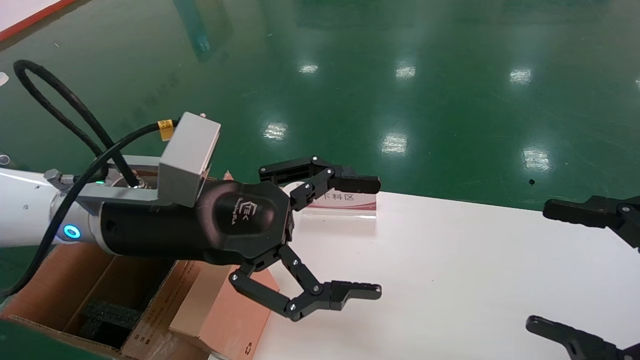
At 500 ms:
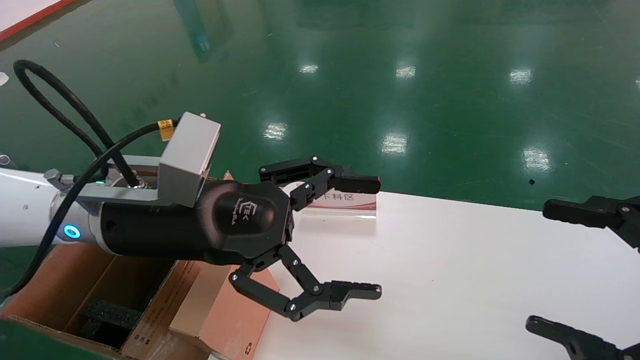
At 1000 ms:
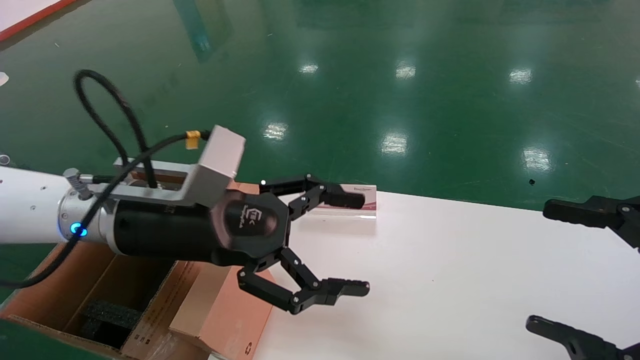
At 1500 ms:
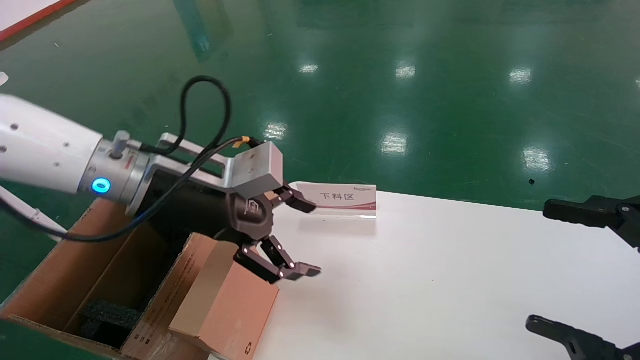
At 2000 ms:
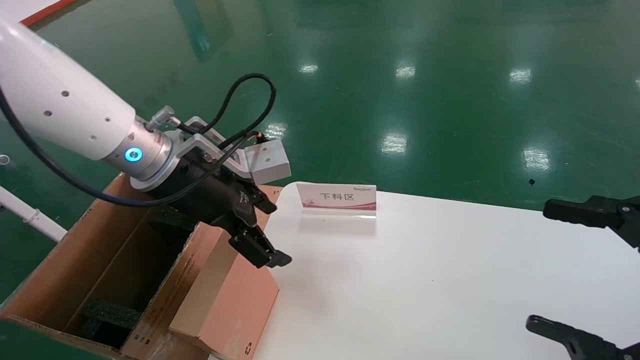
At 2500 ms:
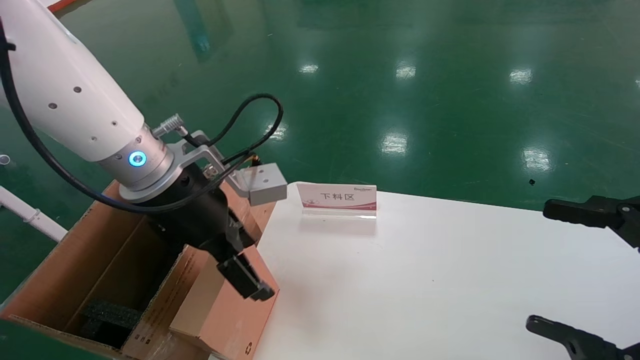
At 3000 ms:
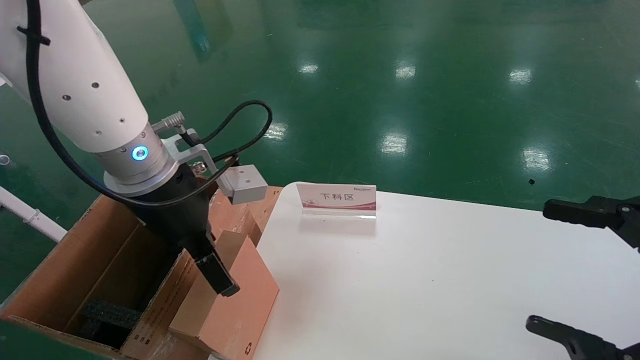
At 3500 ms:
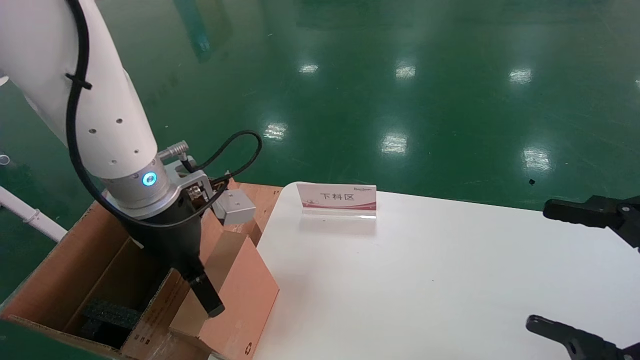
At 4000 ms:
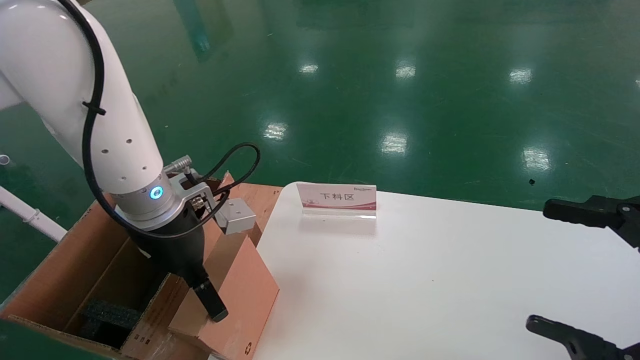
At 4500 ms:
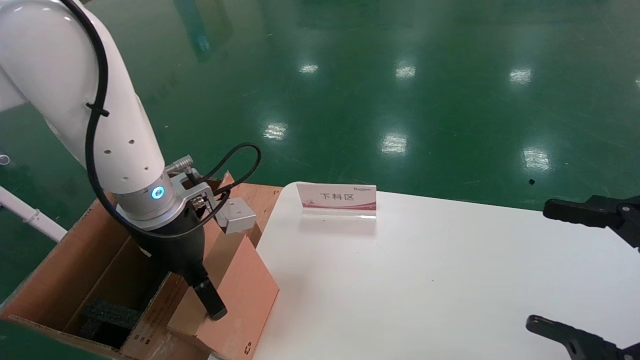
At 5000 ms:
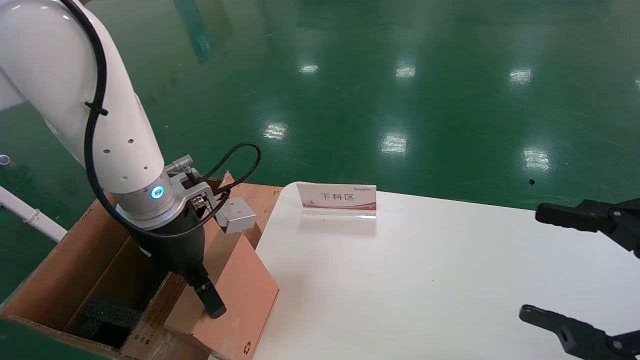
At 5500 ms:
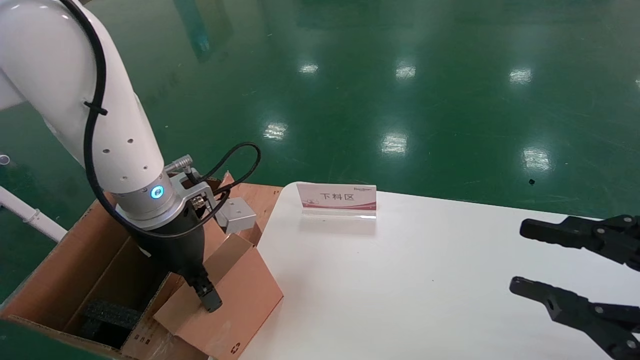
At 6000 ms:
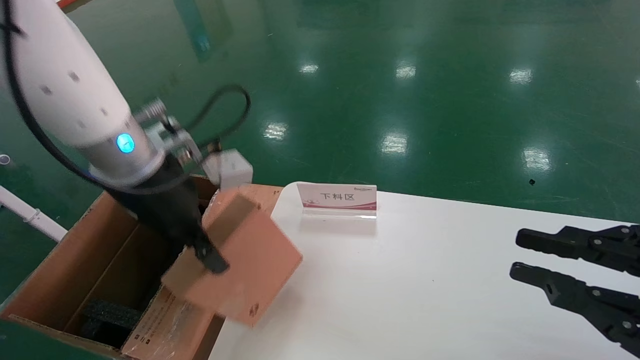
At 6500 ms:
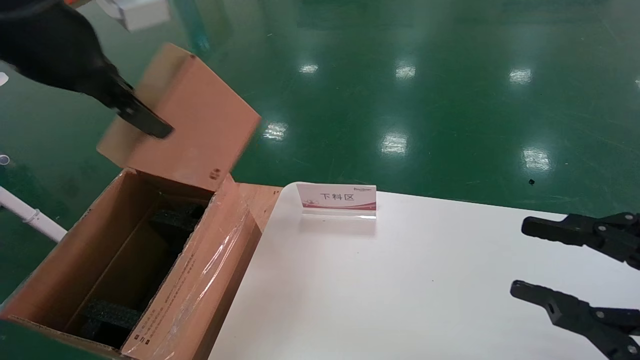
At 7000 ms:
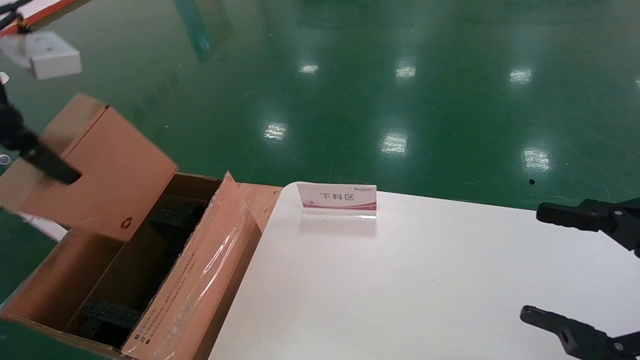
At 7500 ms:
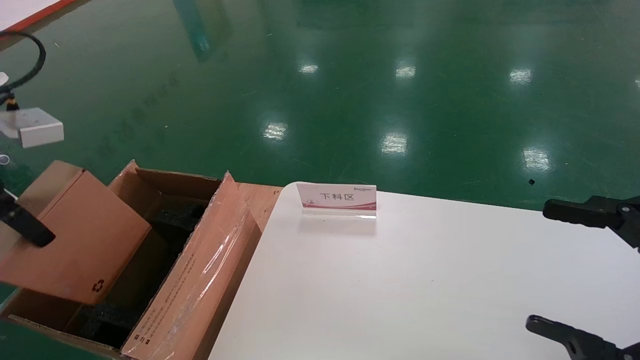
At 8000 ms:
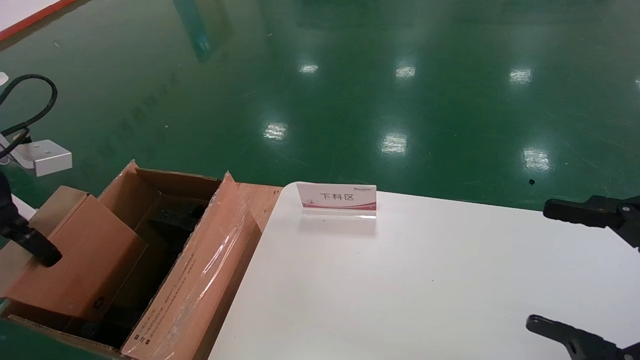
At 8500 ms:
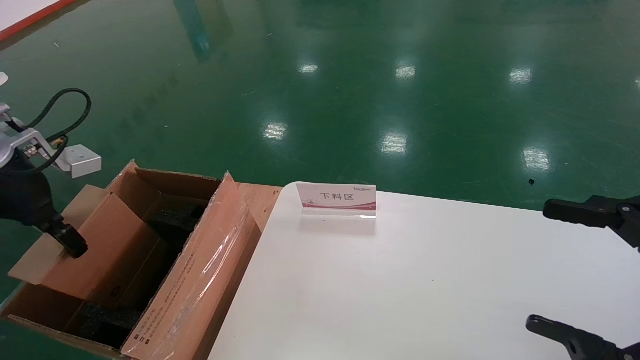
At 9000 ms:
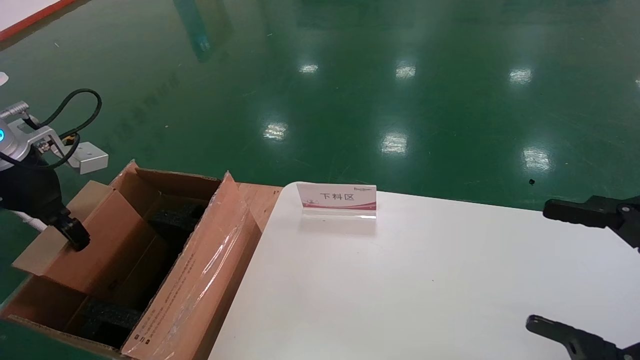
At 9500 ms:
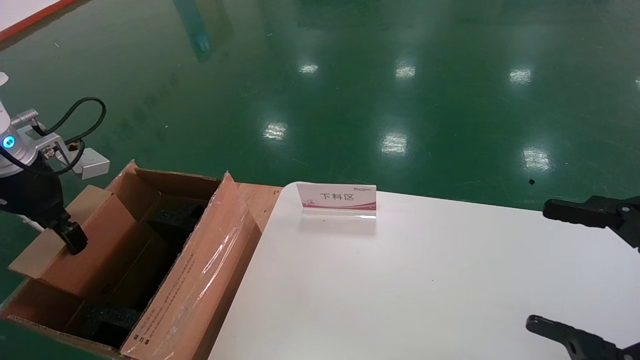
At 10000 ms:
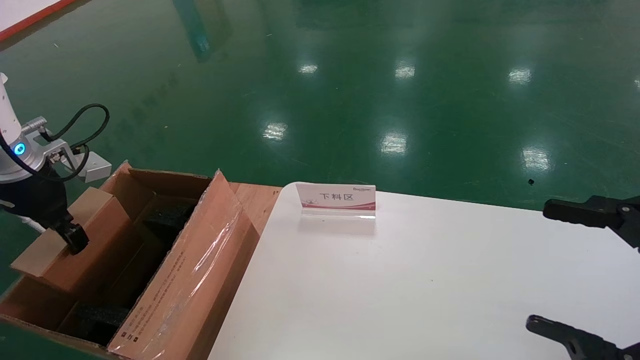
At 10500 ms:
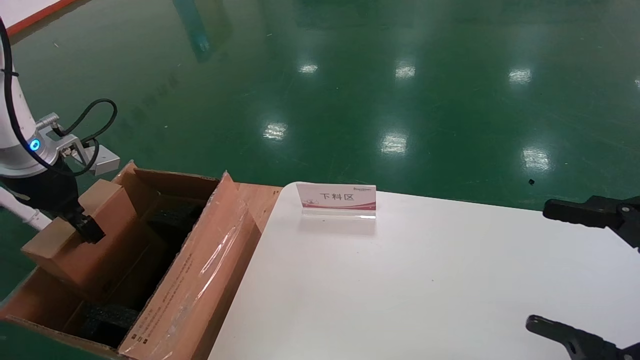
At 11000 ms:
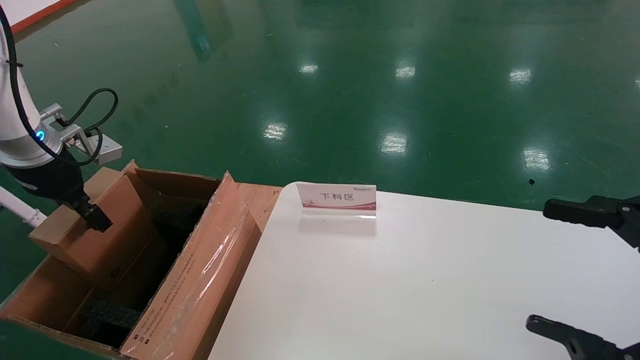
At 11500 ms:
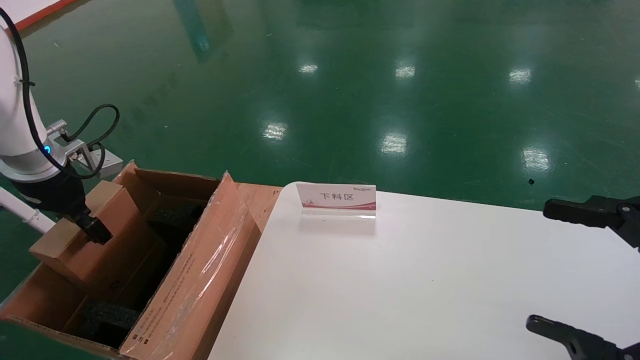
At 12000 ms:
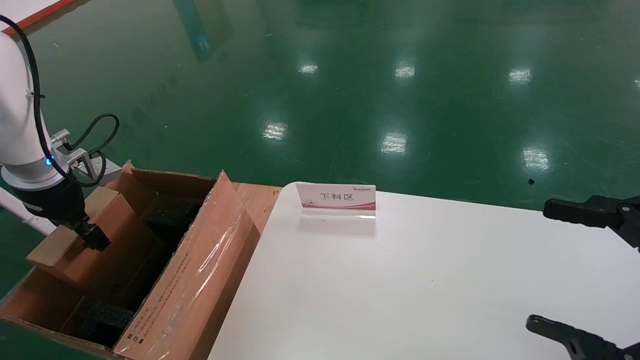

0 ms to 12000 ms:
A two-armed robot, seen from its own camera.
Task of the whole recording: pick up the small cardboard box and load it into the large cardboard box.
Step, 1500 ms to 5500 ms: Pick up the mouse and power cord box.
0 ms to 2000 ms: The left gripper travels forward by roughly 5 cm.
2000 ms to 4000 ms: The left gripper moves roughly 5 cm.
4000 ms to 6000 ms: The left gripper moves upward, some 5 cm, and closes its fingers. The right gripper closes.
6000 ms to 8000 ms: The left gripper heads to the left, covering roughly 20 cm. The right gripper opens.
8000 ms to 10000 ms: The left gripper travels forward by some 10 cm.
10000 ms to 12000 ms: The grippers stay close to where they were, moving slightly.

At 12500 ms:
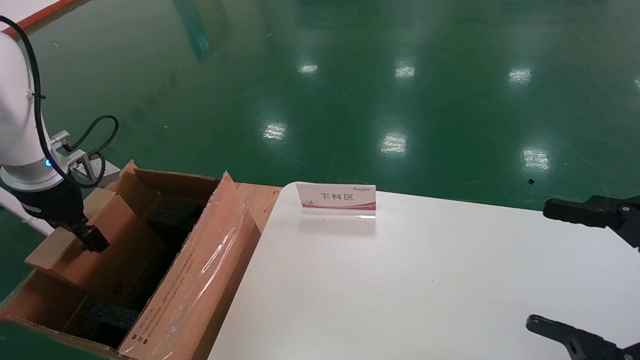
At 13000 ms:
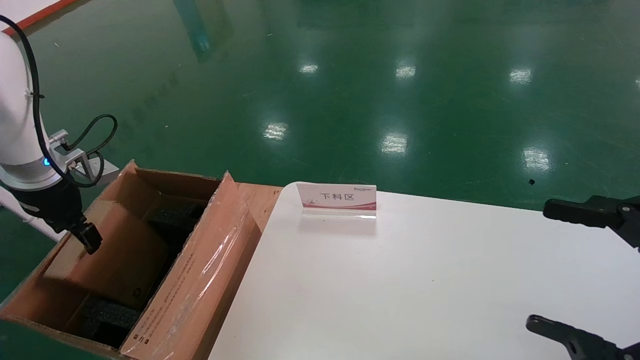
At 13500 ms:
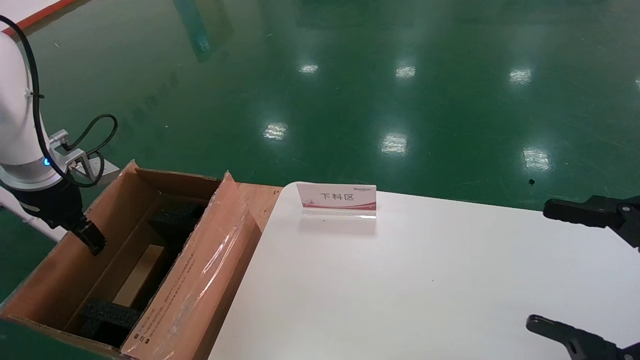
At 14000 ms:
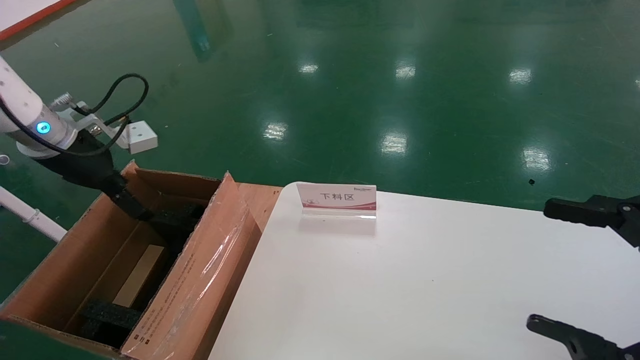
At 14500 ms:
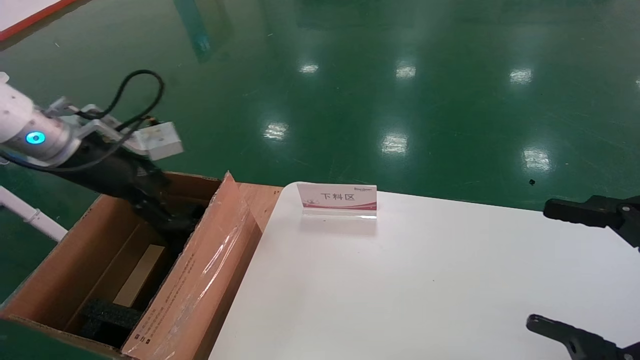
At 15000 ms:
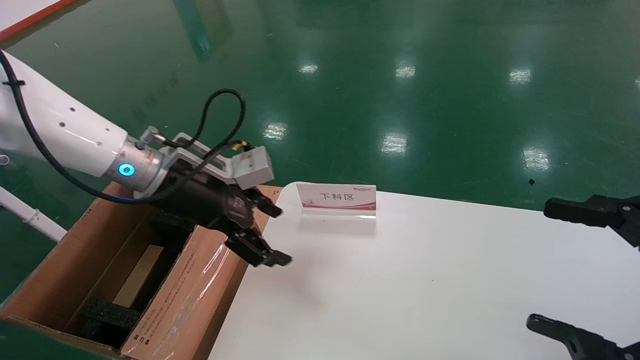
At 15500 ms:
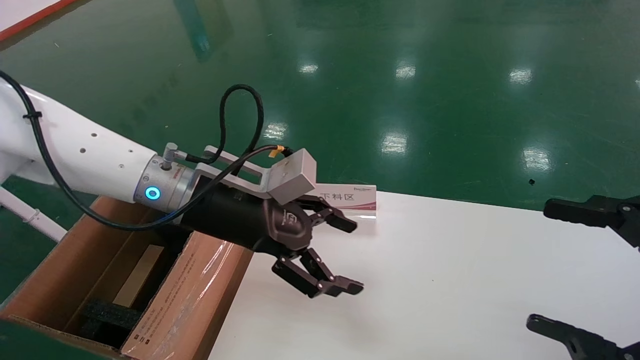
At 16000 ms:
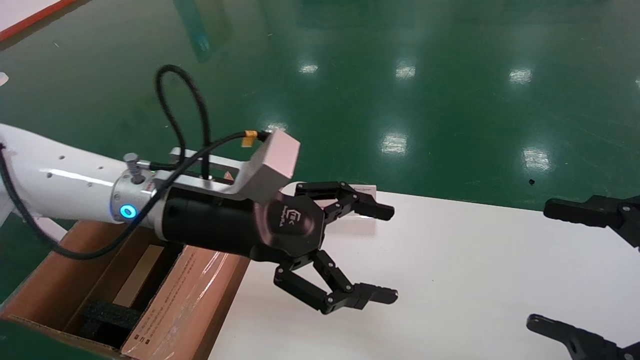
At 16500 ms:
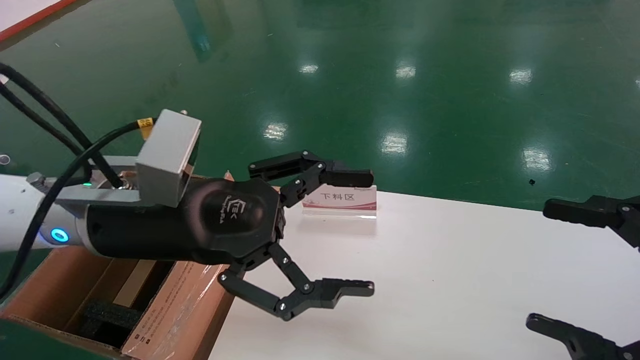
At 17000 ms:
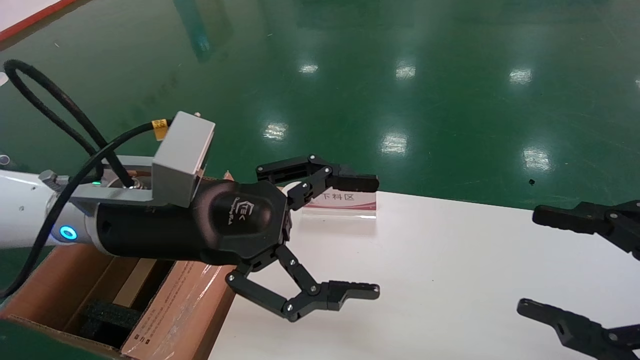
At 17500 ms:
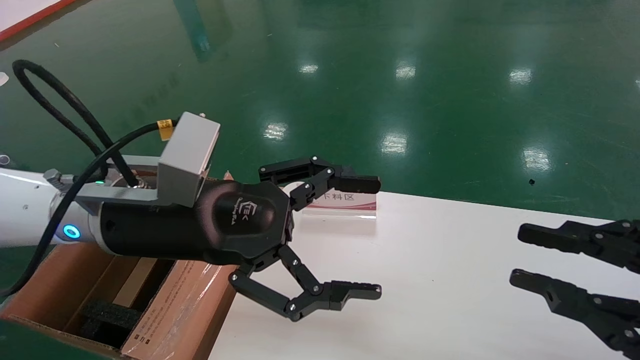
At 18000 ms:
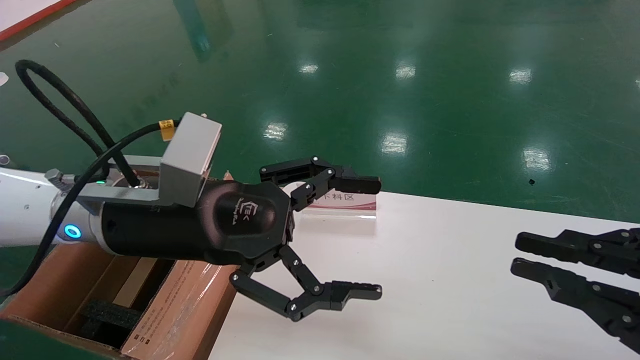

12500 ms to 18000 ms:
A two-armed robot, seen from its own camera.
Task of the whole recording: pick up the small cardboard box and load it into the large cardboard box.
12500 ms to 14500 ms: The left gripper travels to the right by some 10 cm, and opens up.
14500 ms to 16000 ms: The left gripper heads to the right, covering roughly 20 cm.
16000 ms to 18000 ms: The right gripper closes.
